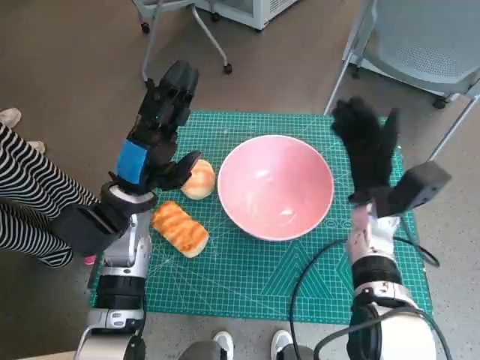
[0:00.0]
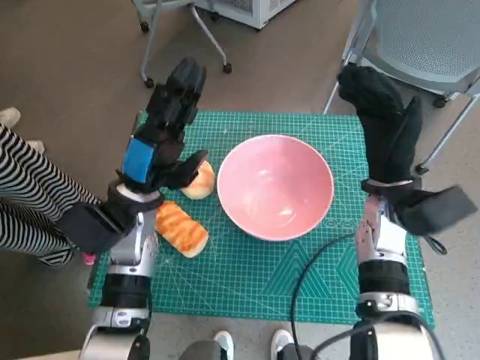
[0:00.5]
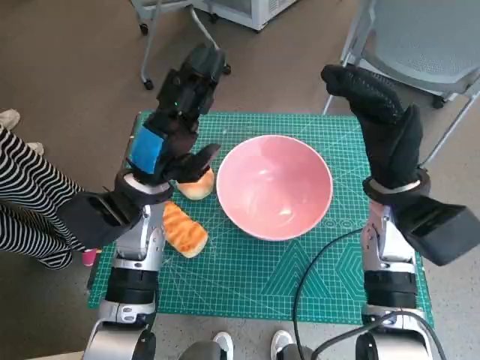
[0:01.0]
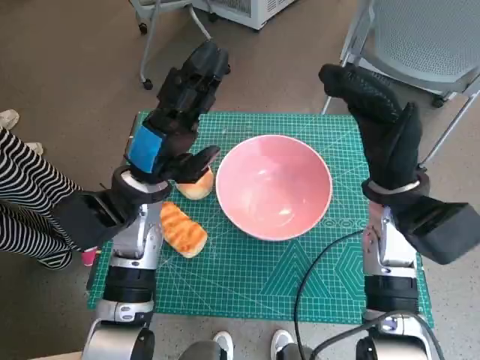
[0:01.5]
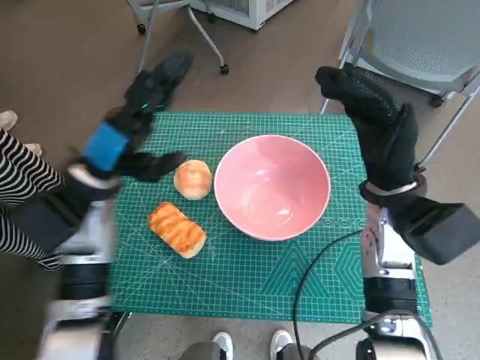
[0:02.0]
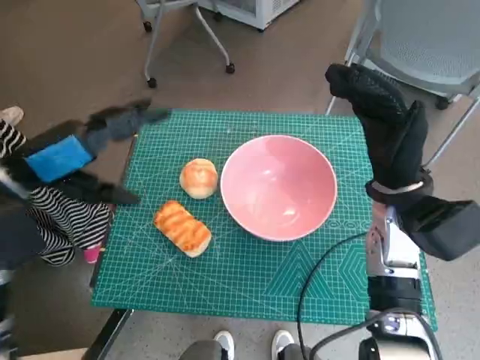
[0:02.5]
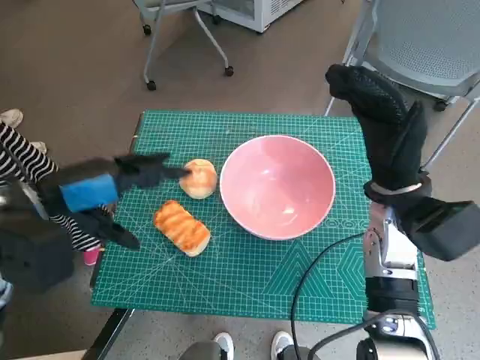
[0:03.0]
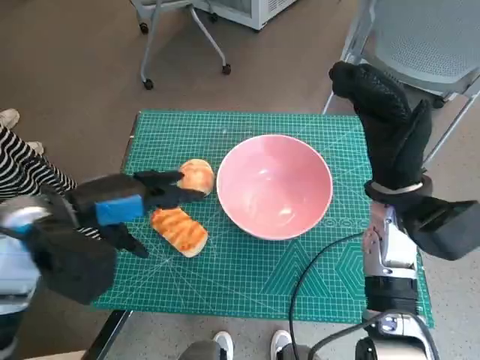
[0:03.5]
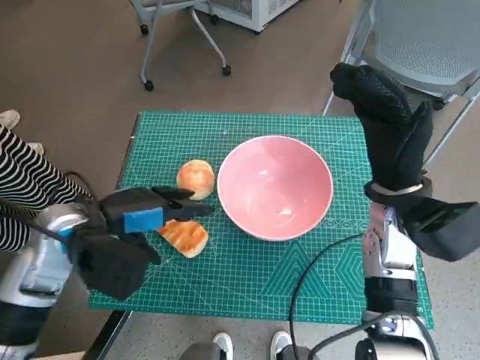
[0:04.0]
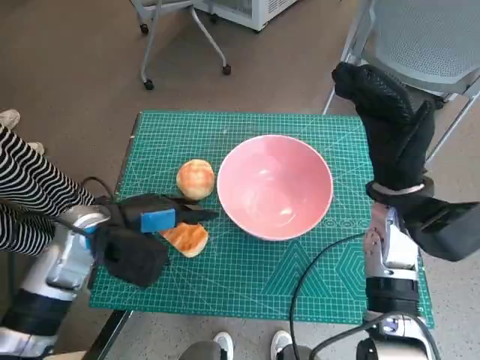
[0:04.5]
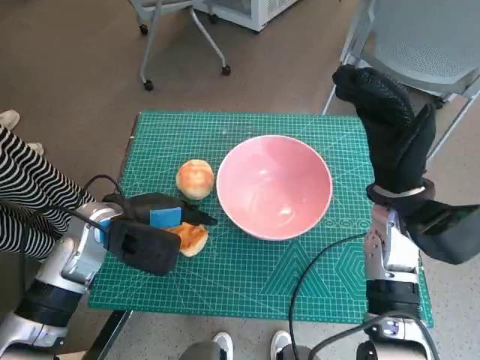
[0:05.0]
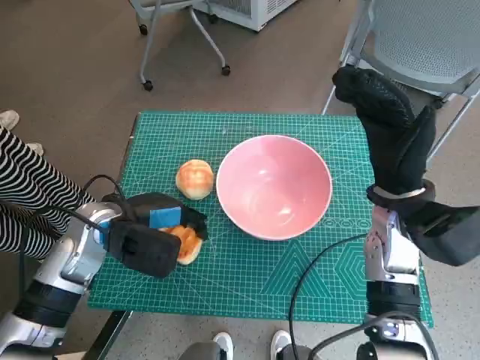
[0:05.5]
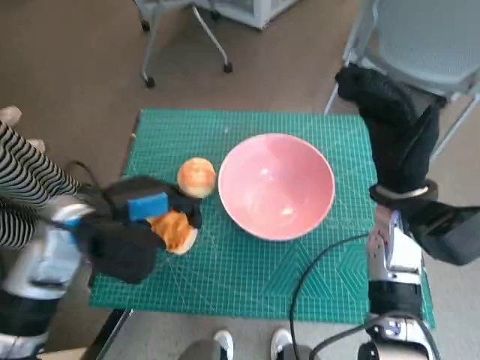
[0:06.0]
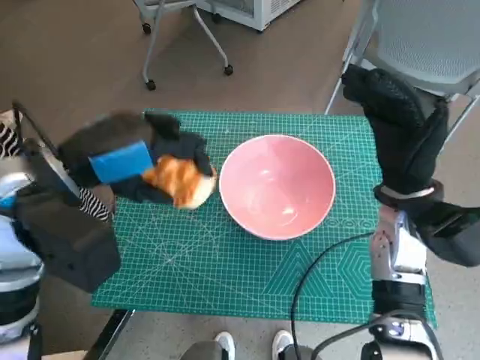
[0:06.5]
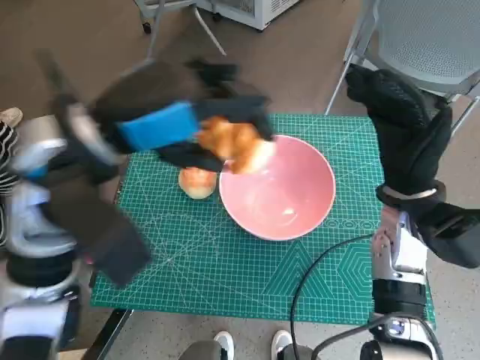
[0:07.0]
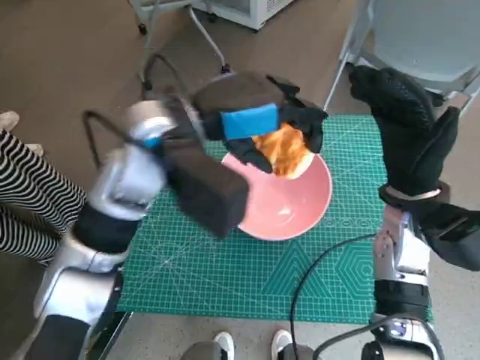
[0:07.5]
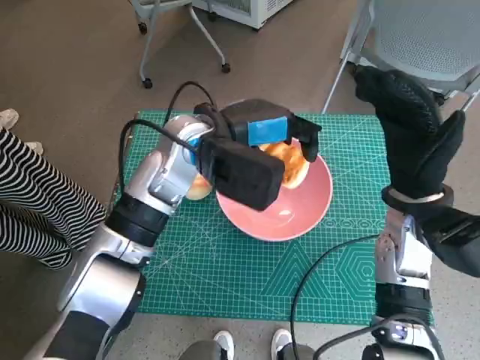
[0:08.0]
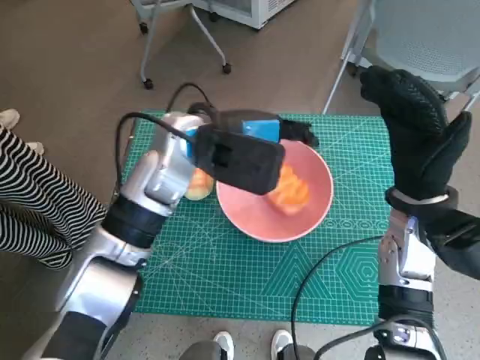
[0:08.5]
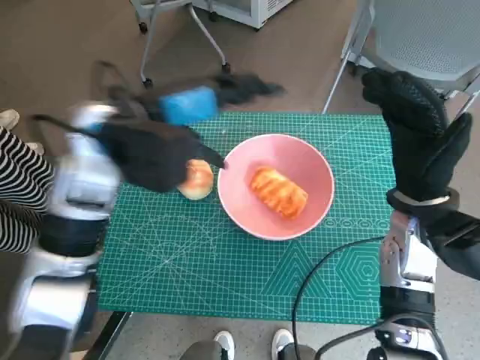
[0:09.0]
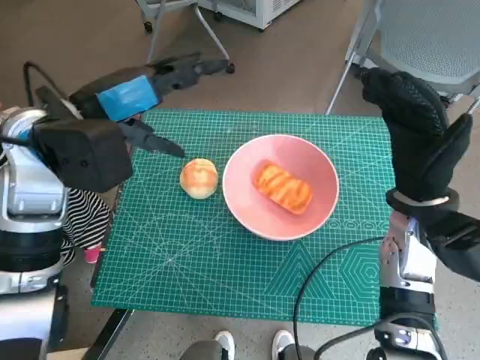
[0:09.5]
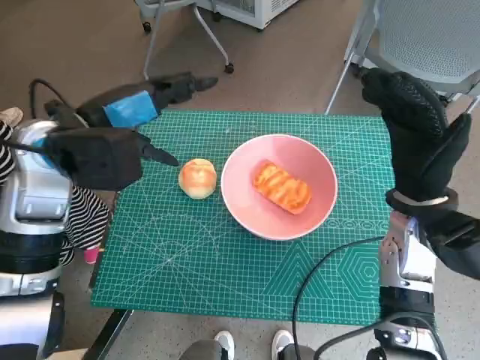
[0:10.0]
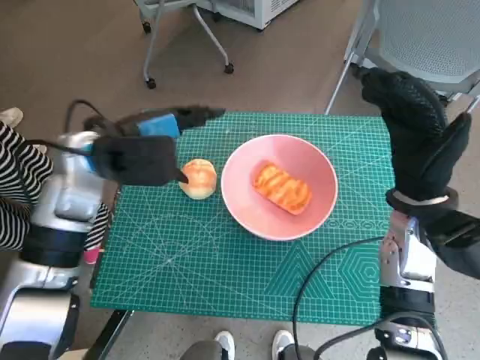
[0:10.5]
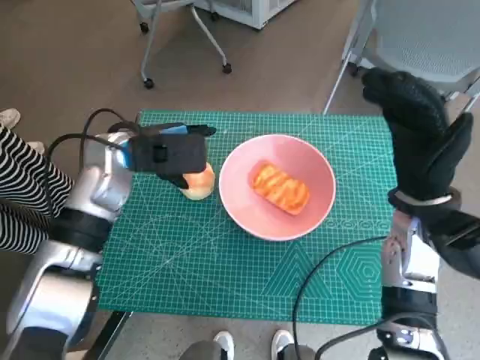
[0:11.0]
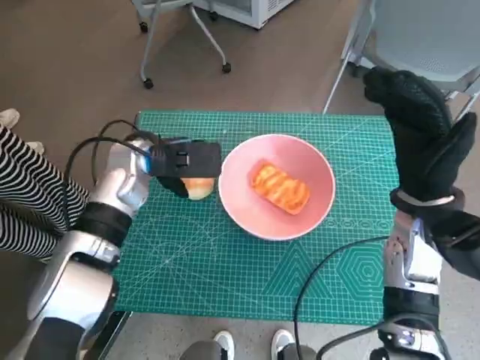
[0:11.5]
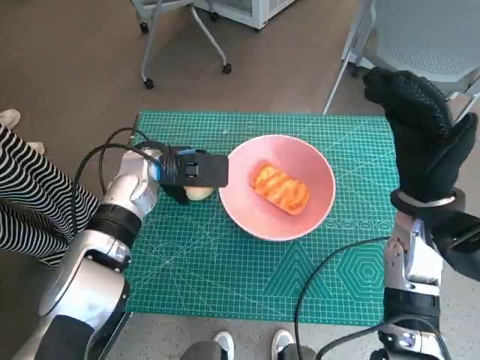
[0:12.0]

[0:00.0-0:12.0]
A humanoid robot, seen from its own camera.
Task of the whole recording: Push the bowl into the center of the table and put the bread into the bowl.
Step, 1.0 to 5.5 s: Grasp the long bread with left hand.
Step, 6.0 to 9.0 s: Place the long bread in pink bowl with left hand.
0.0 to 2.0 s: The right hand goes about 10 cm upward.
4.0 to 6.0 s: The hands stay close to where they were, moving slightly.
6.0 to 8.0 s: The left hand shifts some 15 cm to the right, forward and upward.
8.0 to 10.0 s: The left hand shifts some 15 cm to the left.
10.0 to 12.0 s: The left hand travels downward and forward by some 15 cm.

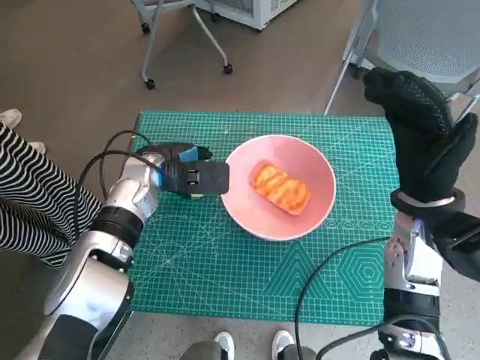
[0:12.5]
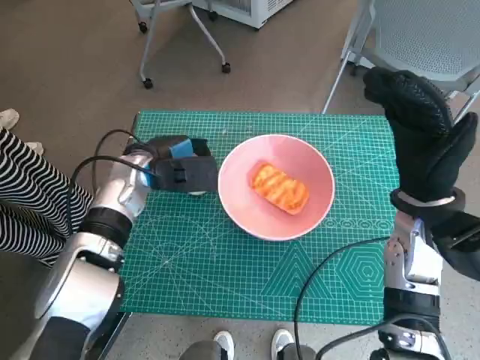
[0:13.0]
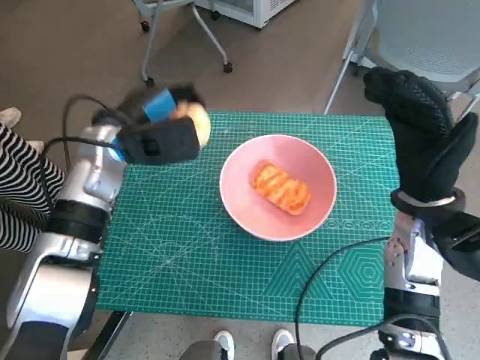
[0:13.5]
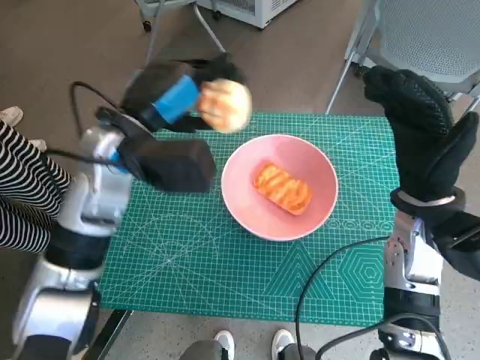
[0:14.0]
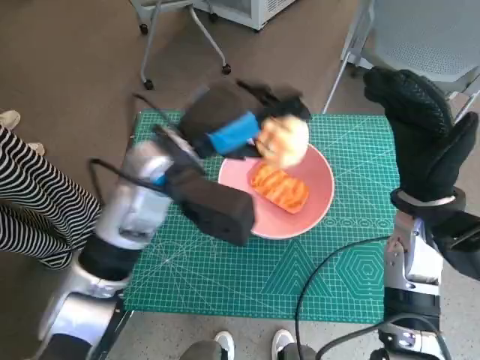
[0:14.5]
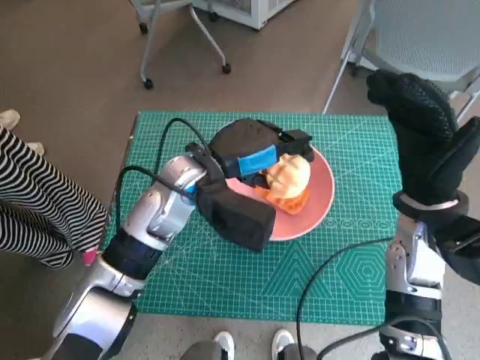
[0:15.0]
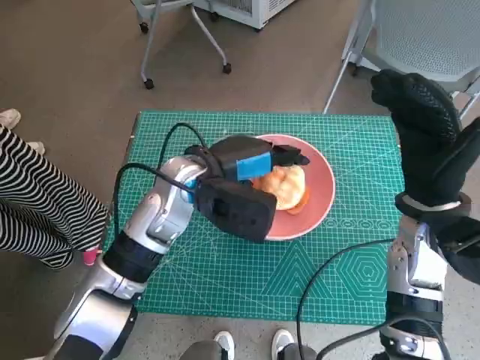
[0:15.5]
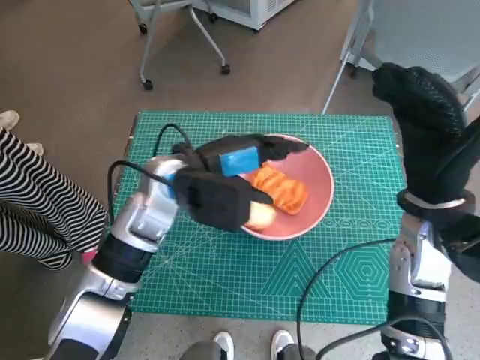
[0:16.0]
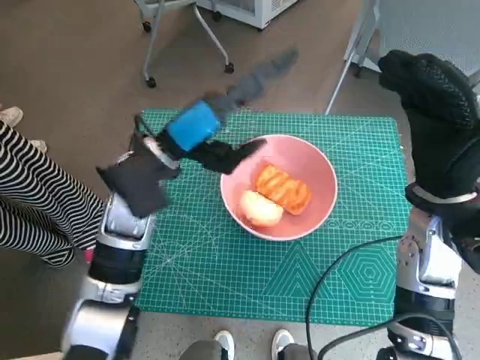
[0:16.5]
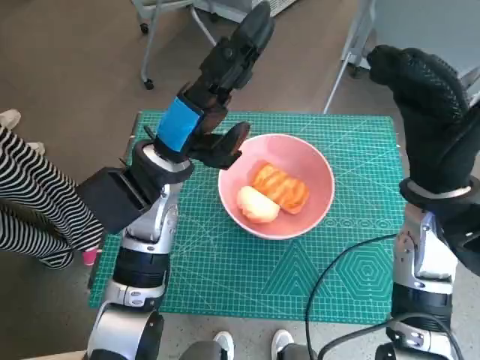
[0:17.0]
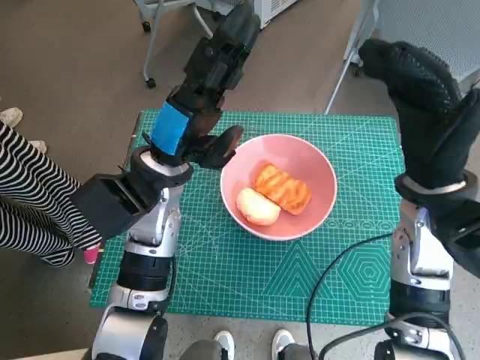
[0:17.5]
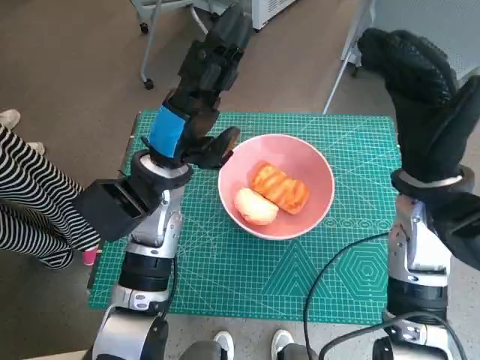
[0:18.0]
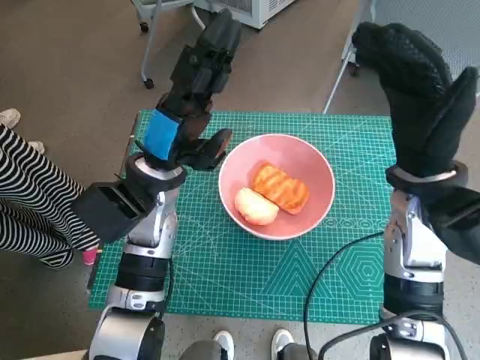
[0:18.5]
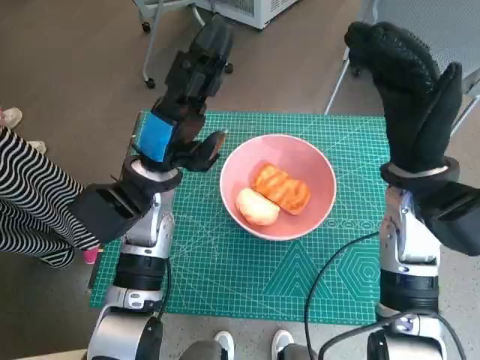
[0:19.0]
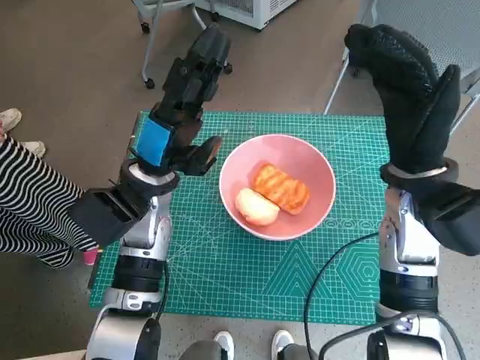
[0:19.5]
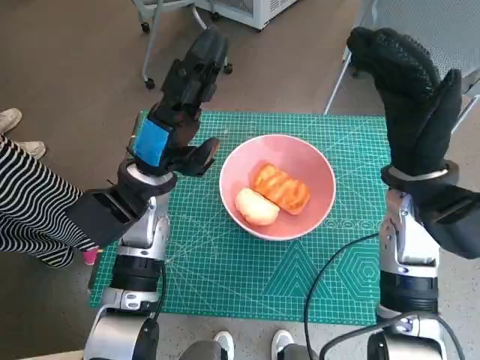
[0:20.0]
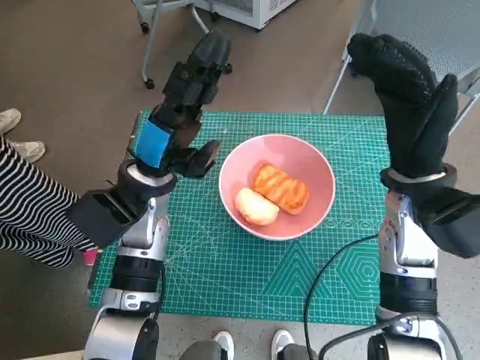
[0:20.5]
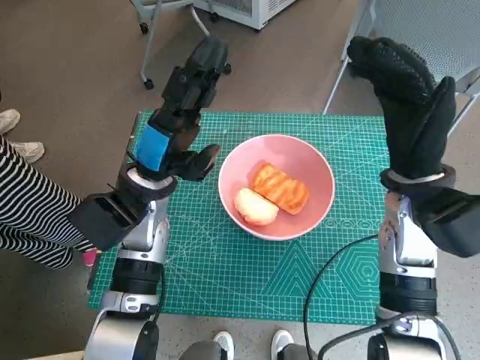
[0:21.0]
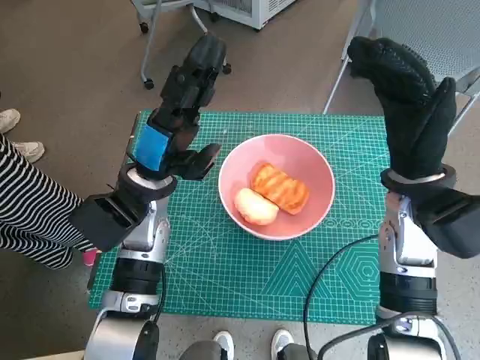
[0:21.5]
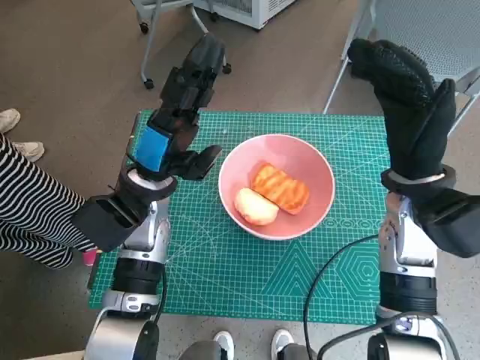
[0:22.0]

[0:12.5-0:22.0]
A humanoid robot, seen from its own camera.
Task of the whole recording: Push the bowl into the center of the table and put the bread into the bowl.
Step, 13.0 to 16.0 s: Place the round bread in pink bowl with left hand.
12.5 to 14.5 s: The left hand heads upward, backward and to the right, covering about 15 cm.
20.0 to 22.0 s: Both hands stay put.

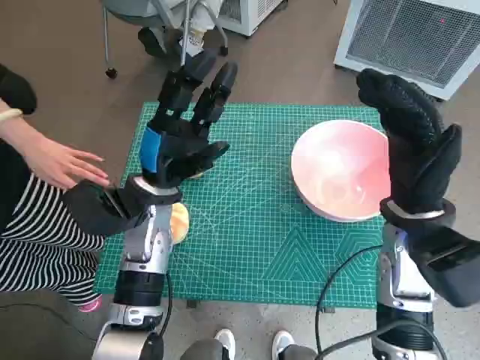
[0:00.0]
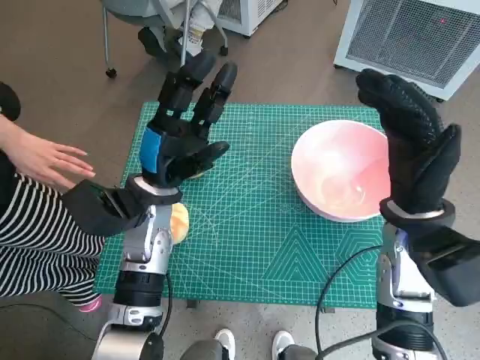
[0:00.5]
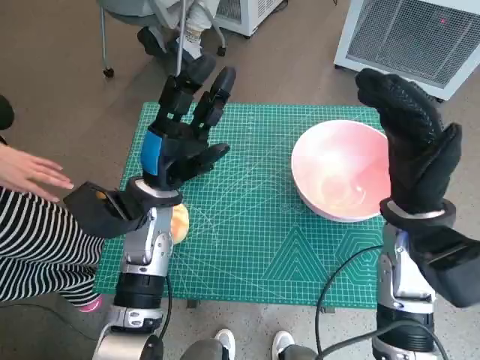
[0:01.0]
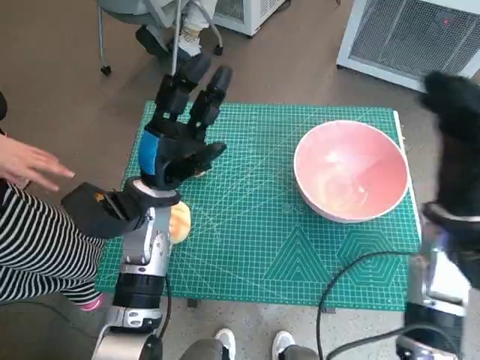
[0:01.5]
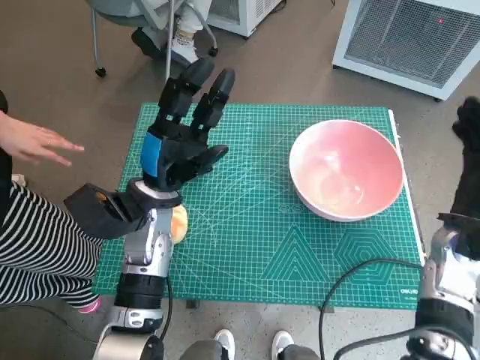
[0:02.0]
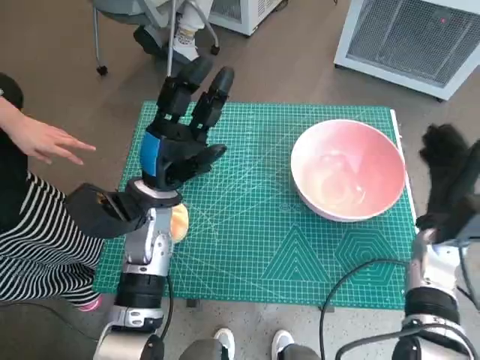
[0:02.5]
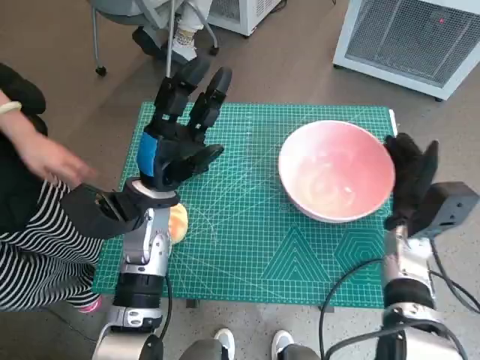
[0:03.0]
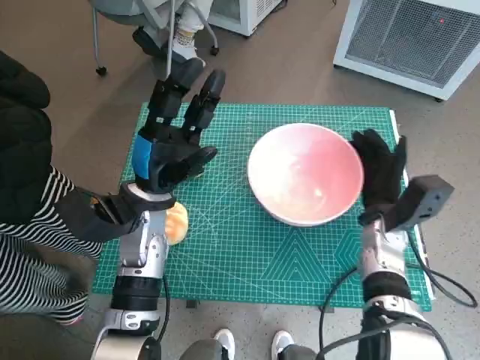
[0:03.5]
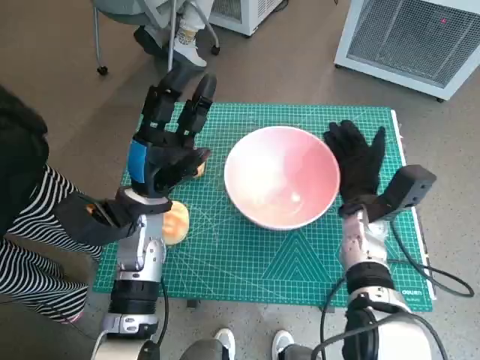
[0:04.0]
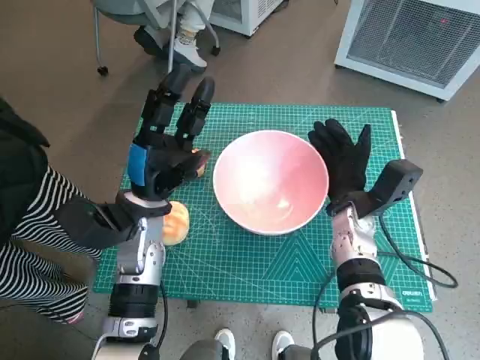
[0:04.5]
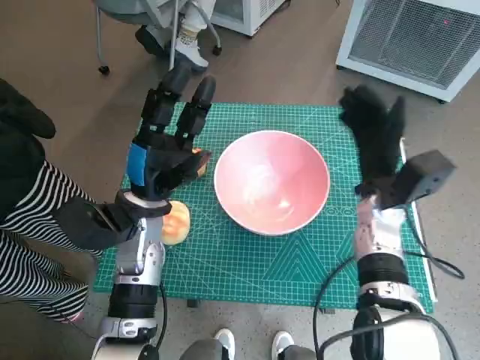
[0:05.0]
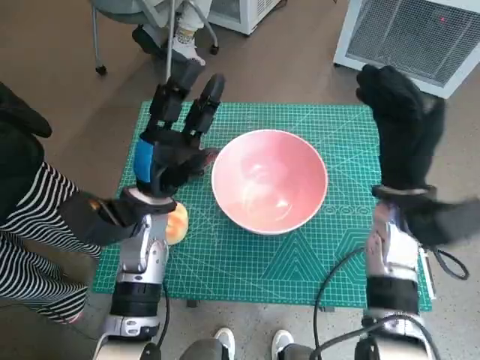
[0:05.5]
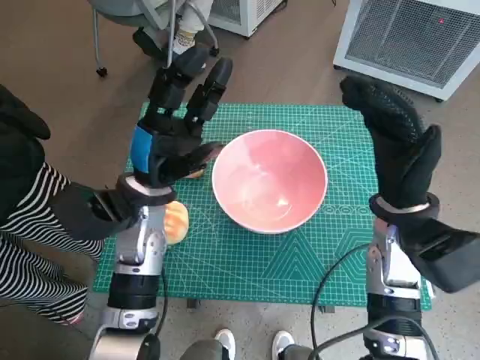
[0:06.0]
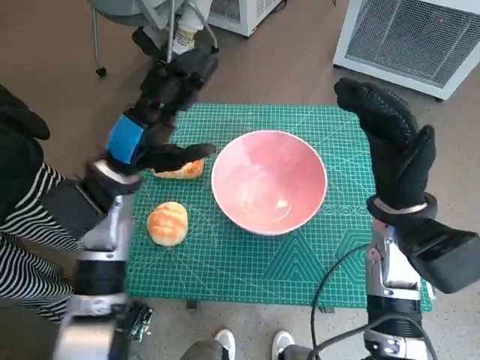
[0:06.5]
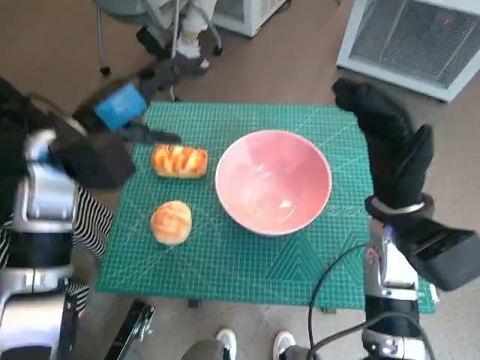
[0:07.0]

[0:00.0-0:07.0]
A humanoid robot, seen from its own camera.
Task of the whole recording: Push the bowl into the center of the table and put the bread into the bowl.
Step, 0.0 to 4.5 s: Move the pink bowl to the center of table with right hand.
2.0 to 3.5 s: The right hand shifts roughly 10 cm to the left and downward.
3.5 to 5.0 s: The right hand changes place by some 5 cm.
5.0 to 7.0 s: The left hand shifts some 10 cm upward and to the left. The right hand moves upward and backward, about 10 cm.
